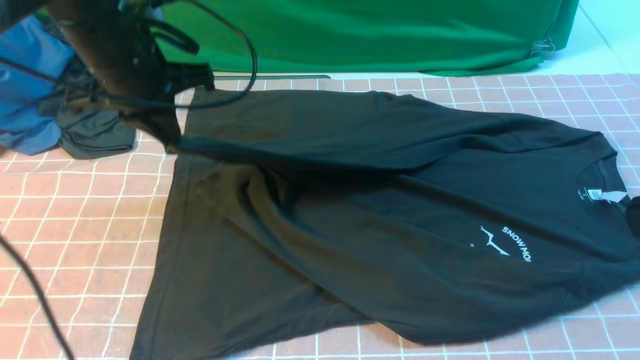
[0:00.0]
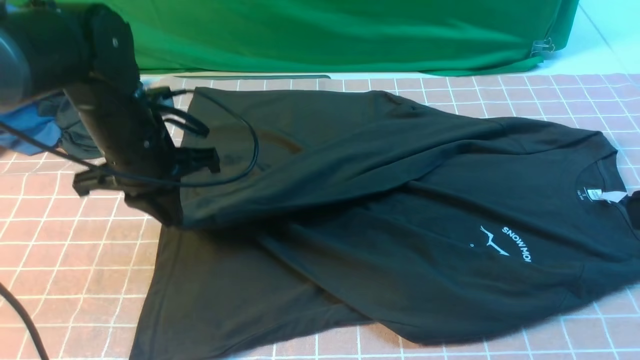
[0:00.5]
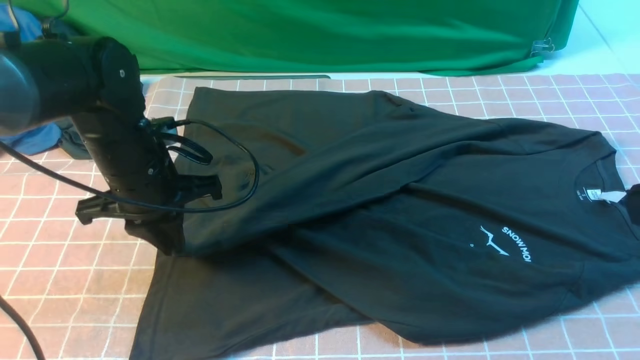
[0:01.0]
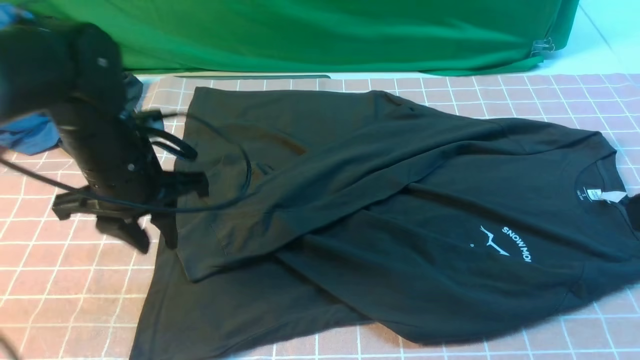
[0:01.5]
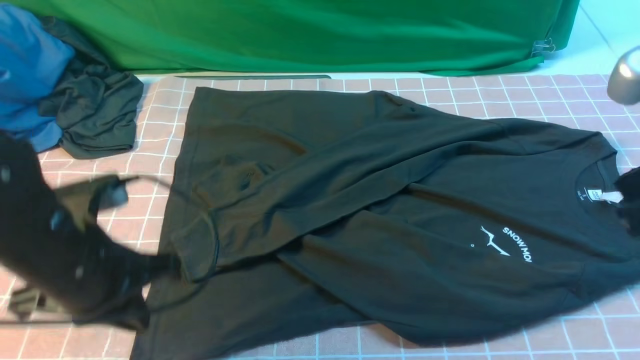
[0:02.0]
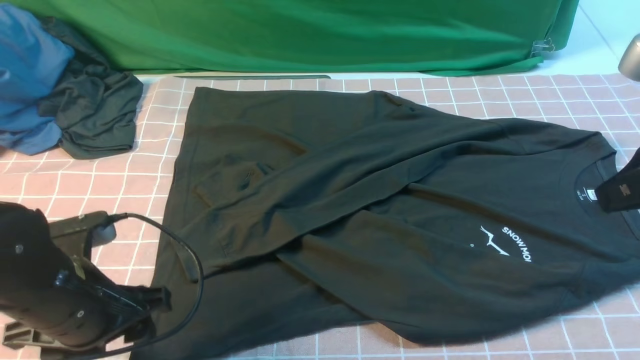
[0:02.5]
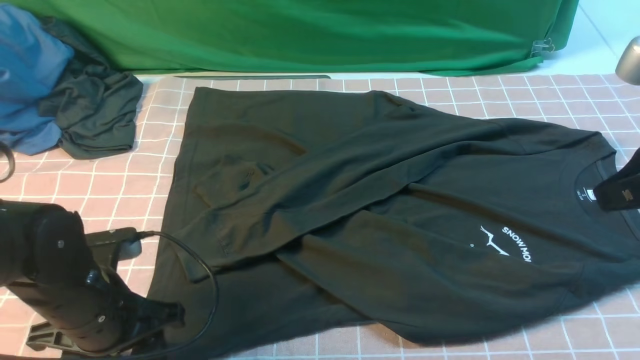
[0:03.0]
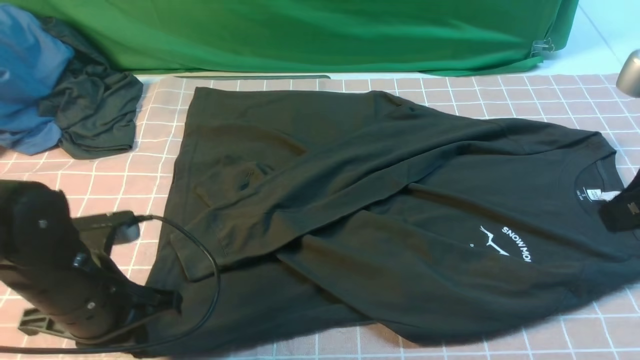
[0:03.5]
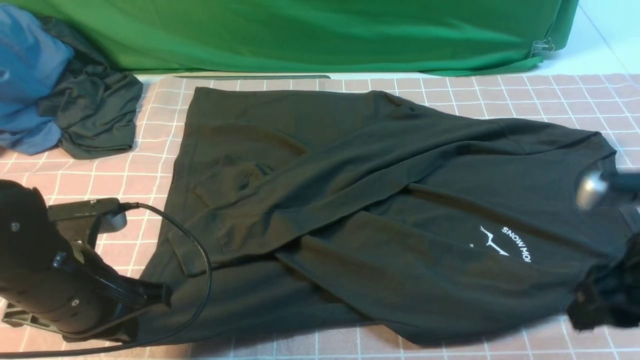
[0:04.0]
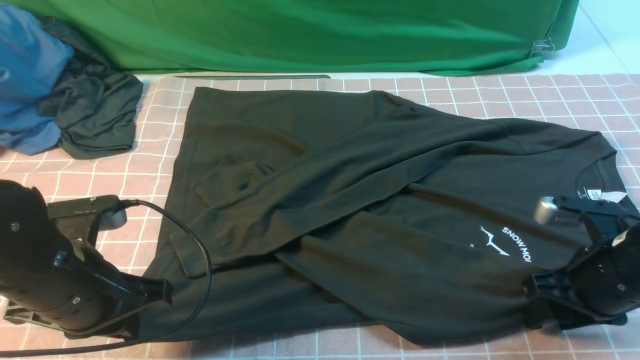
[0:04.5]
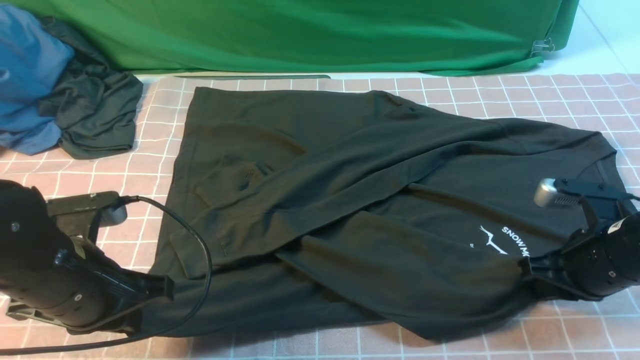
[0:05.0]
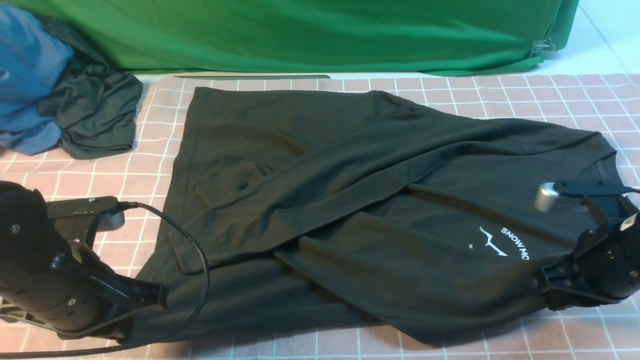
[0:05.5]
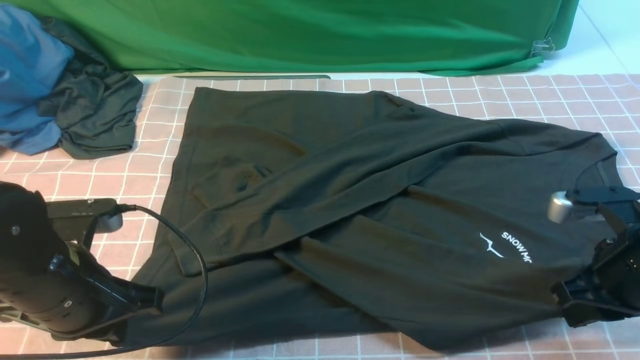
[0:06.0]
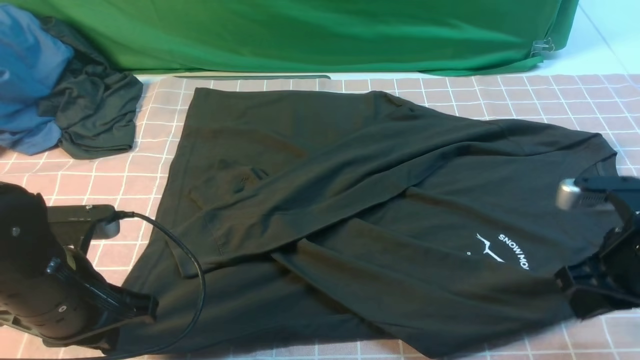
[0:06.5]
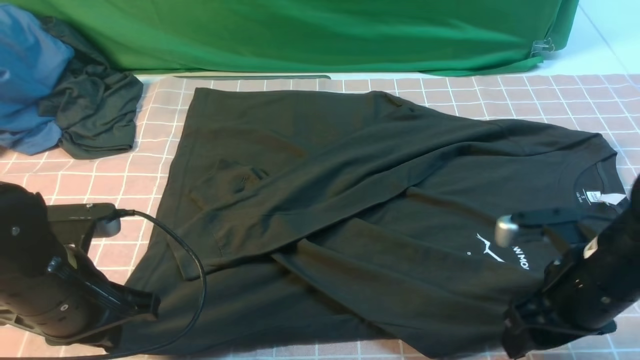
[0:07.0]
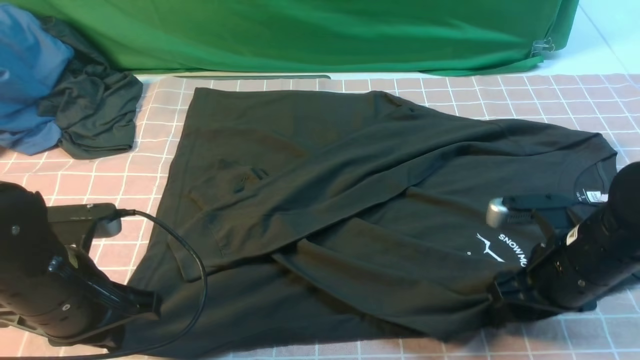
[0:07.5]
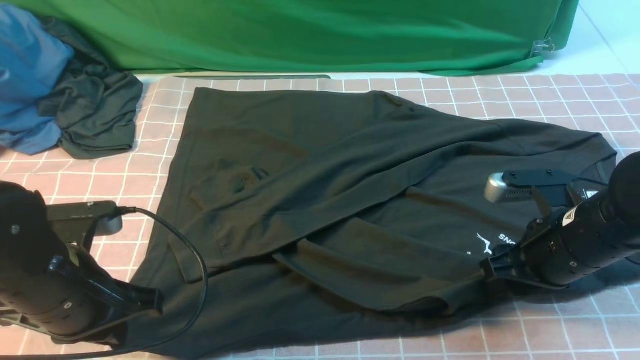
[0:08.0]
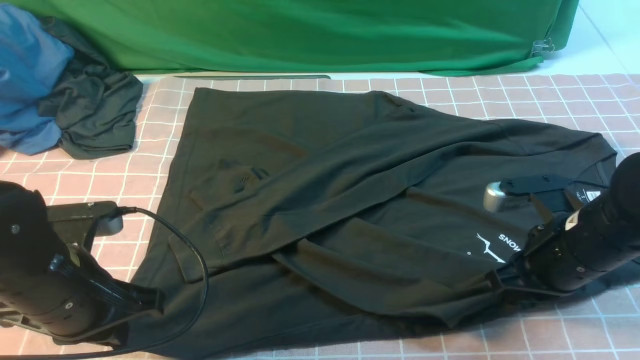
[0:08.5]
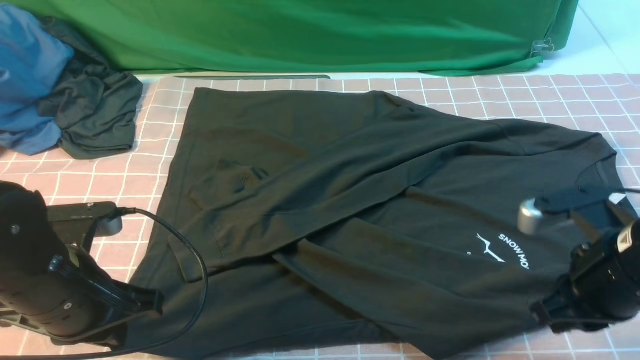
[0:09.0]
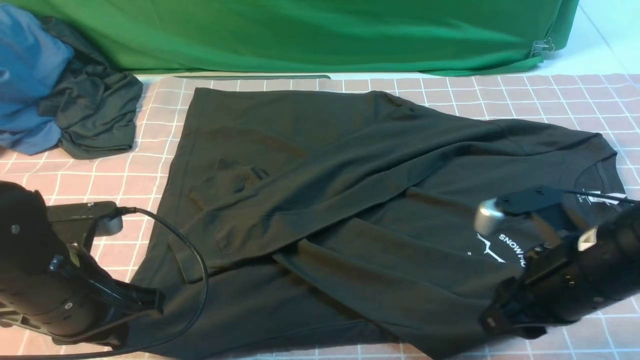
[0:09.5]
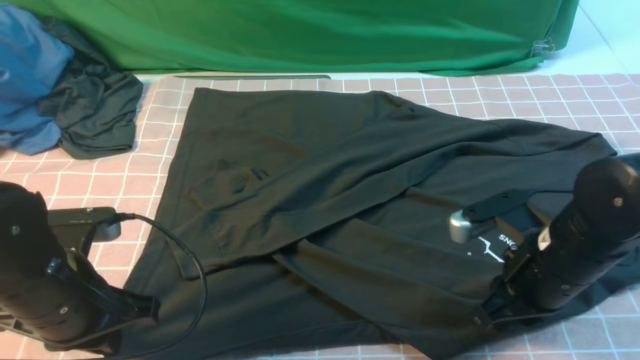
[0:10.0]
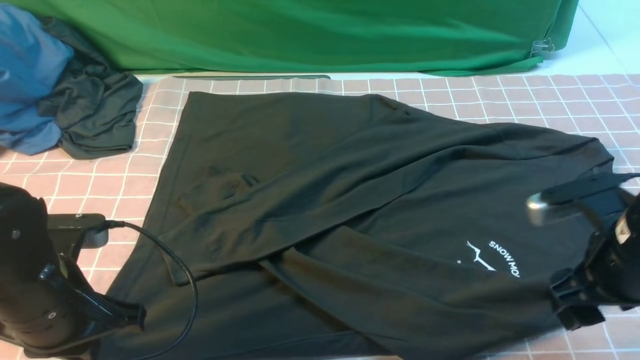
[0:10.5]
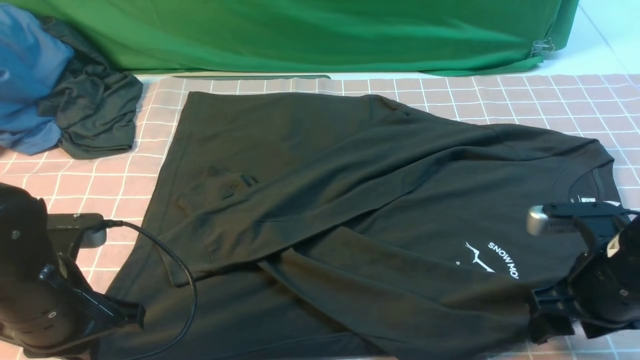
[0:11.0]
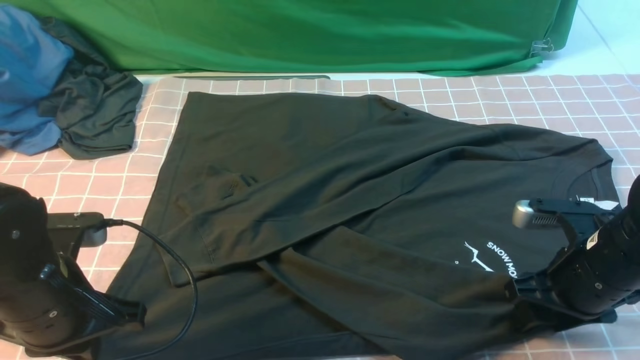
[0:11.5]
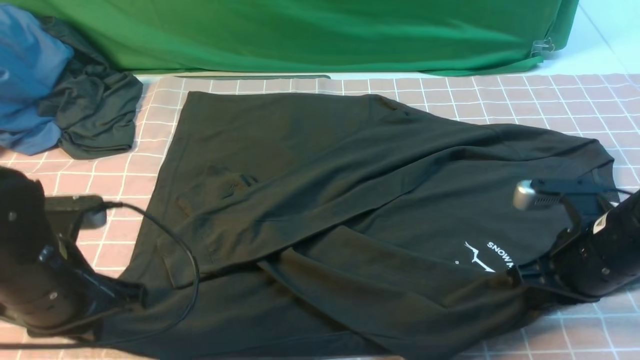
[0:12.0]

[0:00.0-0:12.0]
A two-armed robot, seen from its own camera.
Step, 0:01.5 to 0:11.5: use both arms simultaneously to clamp the lower edge of the clothing fabric.
0:00.0 to 0:02.0: The left gripper heads backward and downward, covering roughly 20 cm. The right gripper moves forward, roughly 10 cm.
0:02.0 to 0:04.0: The right gripper travels downward by approximately 15 cm, and opens, while the left gripper opens, then closes again.
0:04.0 to 0:06.0: The right gripper closes its fingers.
0:06.0 to 0:08.0: The right gripper is displaced to the left by some 5 cm, and opens.
0:08.0 to 0:10.0: The right gripper closes up.
0:10.0 to 0:12.0: The right gripper opens and closes again.

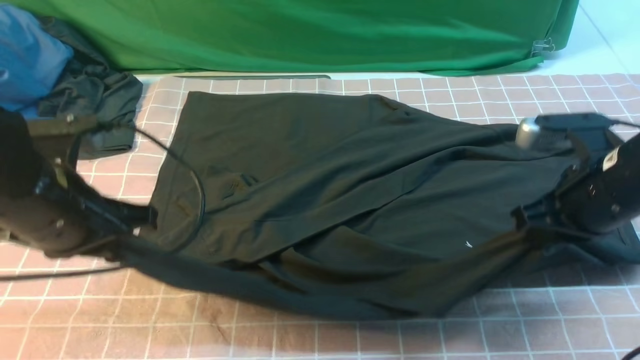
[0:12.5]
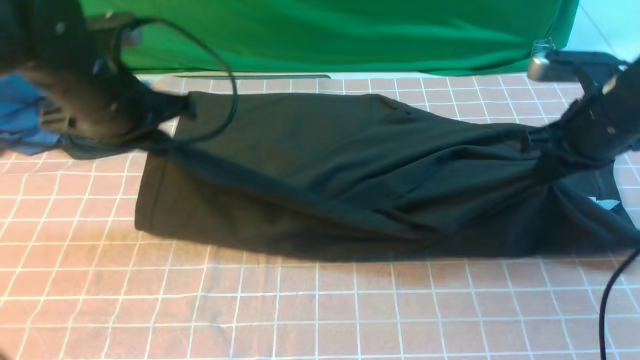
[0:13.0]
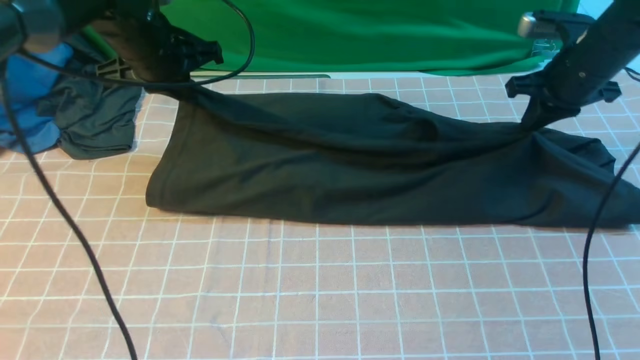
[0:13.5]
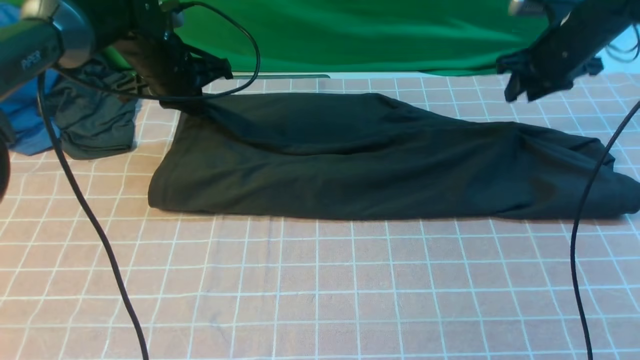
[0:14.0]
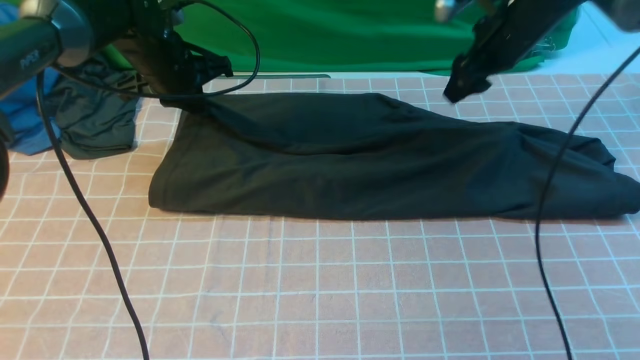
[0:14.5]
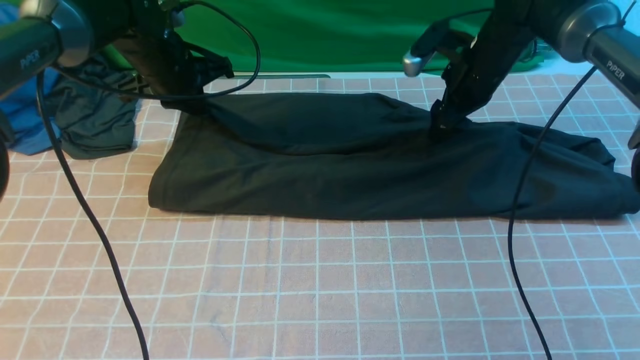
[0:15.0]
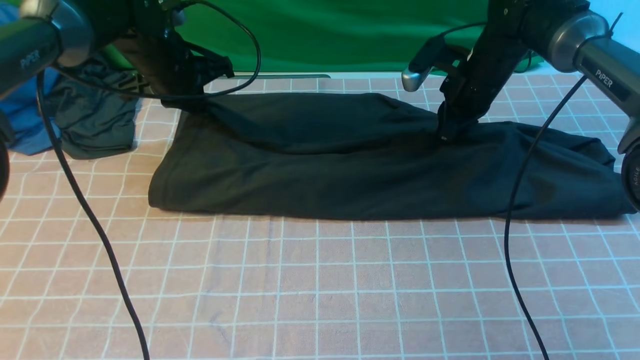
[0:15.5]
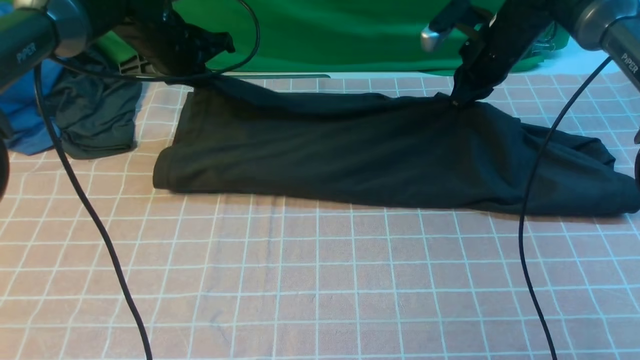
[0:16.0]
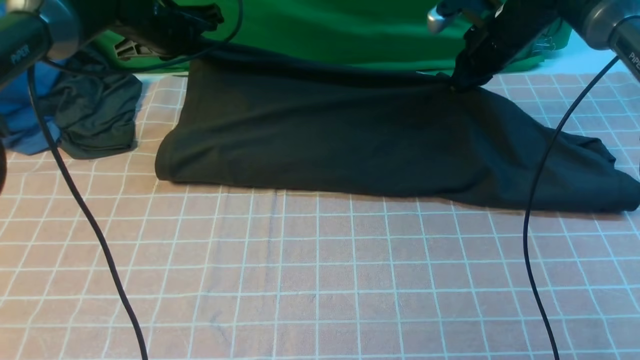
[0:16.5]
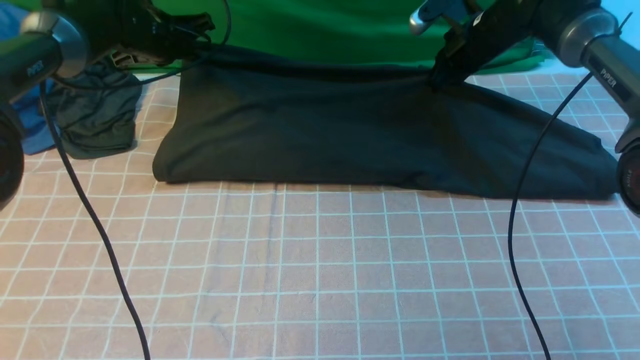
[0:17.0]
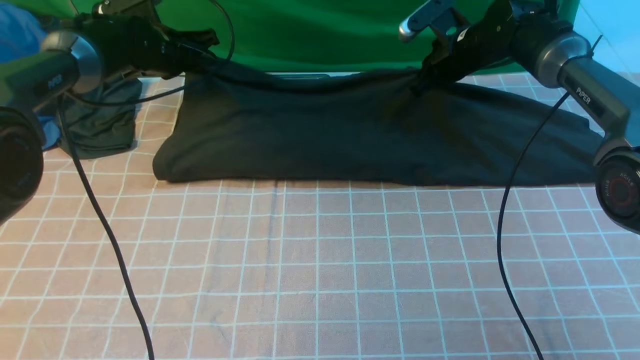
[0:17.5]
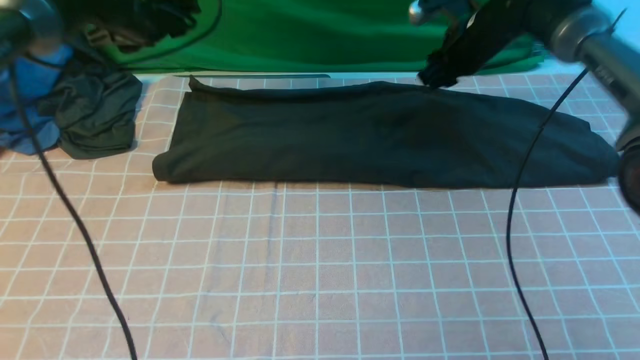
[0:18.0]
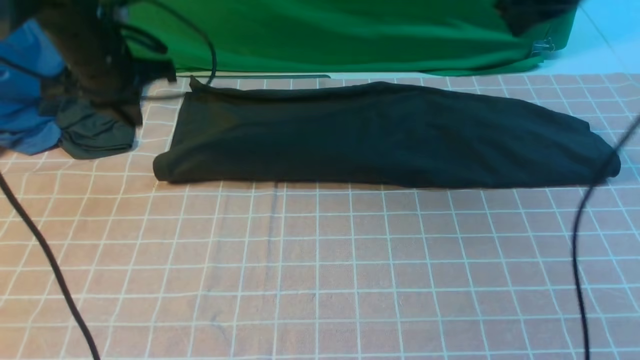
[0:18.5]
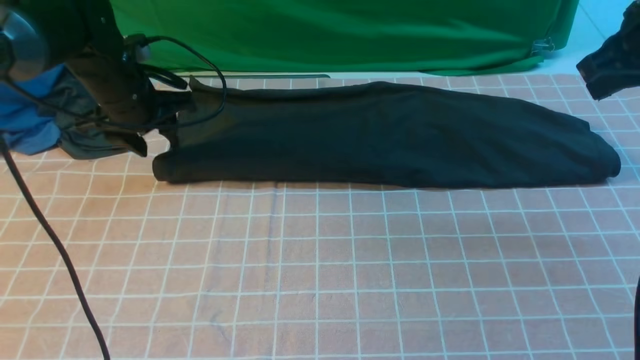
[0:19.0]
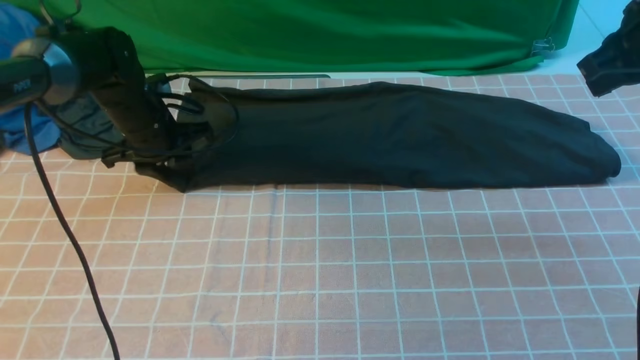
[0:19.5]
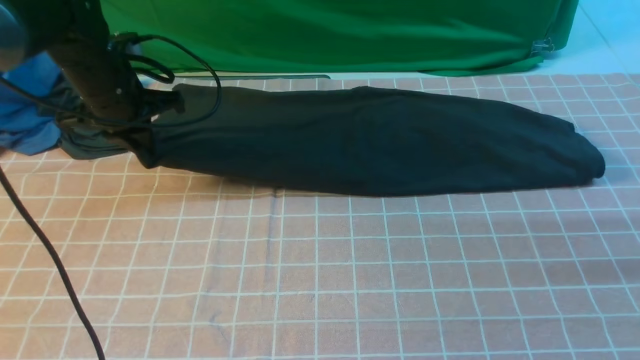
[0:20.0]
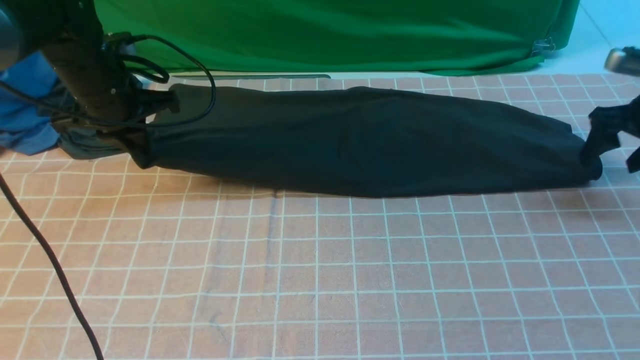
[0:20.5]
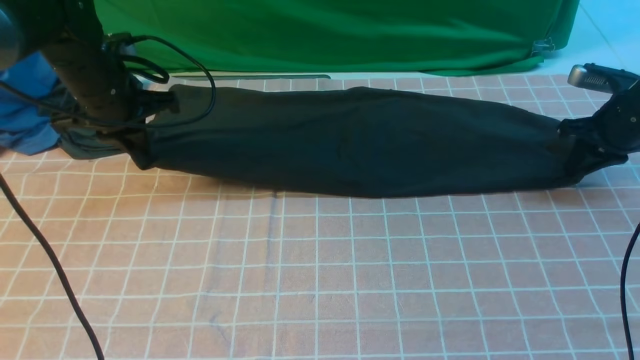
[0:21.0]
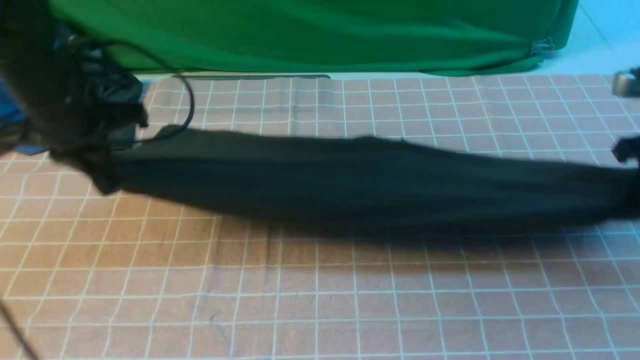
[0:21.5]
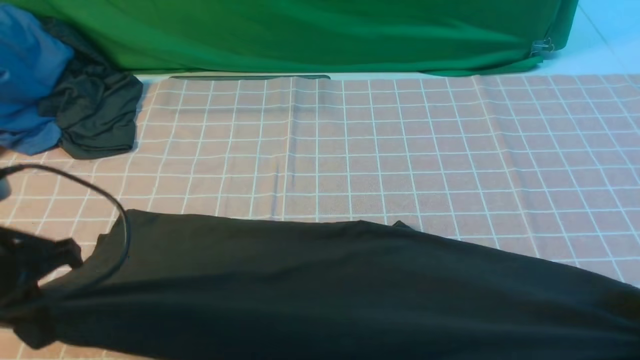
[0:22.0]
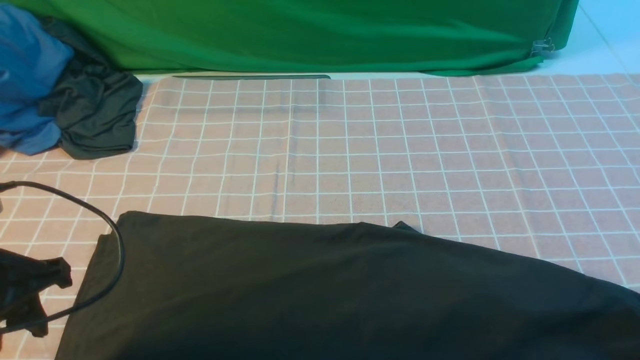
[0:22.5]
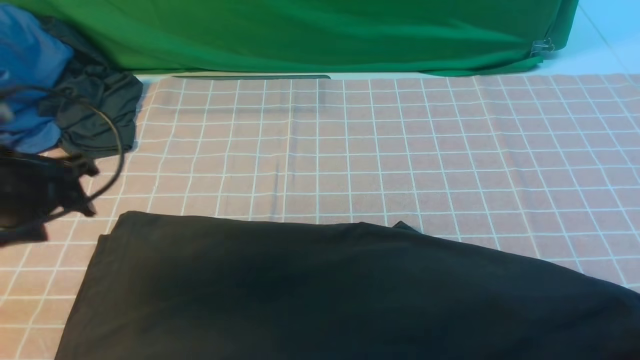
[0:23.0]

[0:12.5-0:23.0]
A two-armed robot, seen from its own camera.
Step, 0:12.5 to 0:17.5: use both arms to drag the lower edge of the fabric forward and fold it over the upper edge.
0:12.5 to 0:14.5: Both grippers travel together forward, some 20 cm. The right gripper opens up.
0:14.5 to 0:16.5: The right gripper closes its fingers.
0:16.5 to 0:19.0: The left gripper goes some 5 cm backward, and opens, while the right gripper travels backward, upward and to the right by roughly 20 cm.
0:19.0 to 0:21.0: The left gripper closes up. Meanwhile the right gripper goes roughly 20 cm downward, to the right and forward, and opens and closes again.
0:21.0 to 0:23.0: The grippers both shift backward by roughly 20 cm. The right gripper opens its fingers. Meanwhile the left gripper opens.
